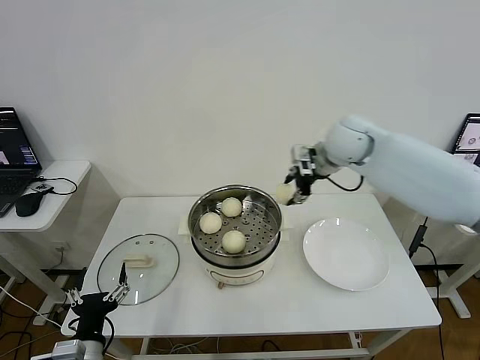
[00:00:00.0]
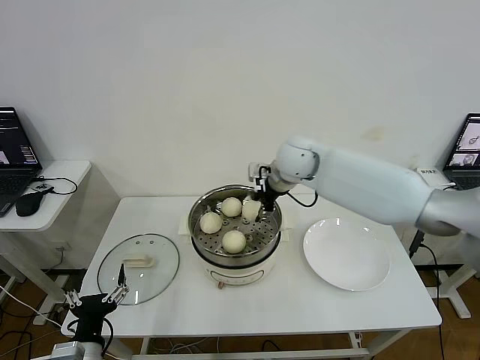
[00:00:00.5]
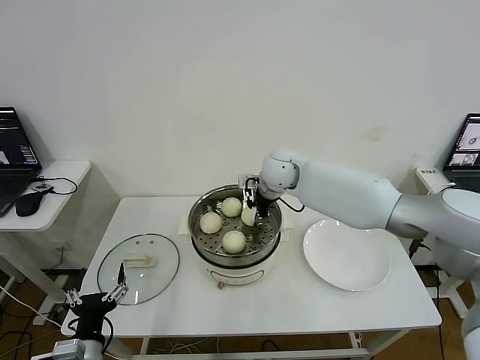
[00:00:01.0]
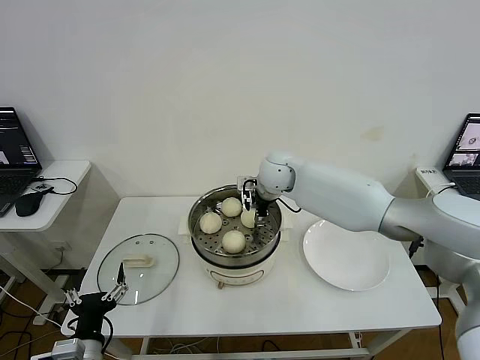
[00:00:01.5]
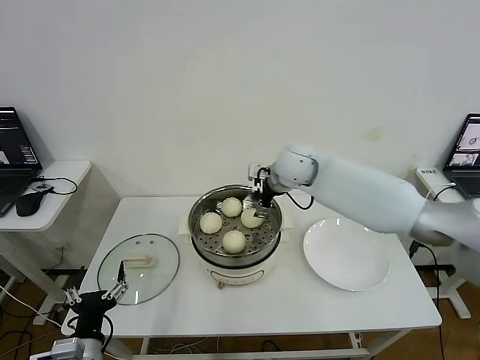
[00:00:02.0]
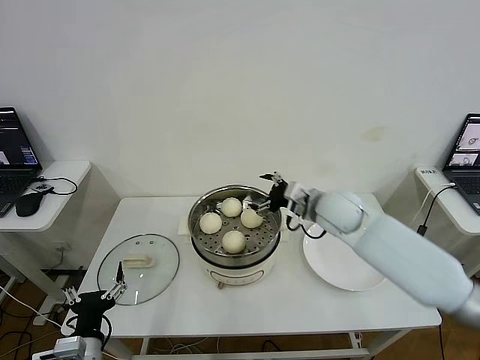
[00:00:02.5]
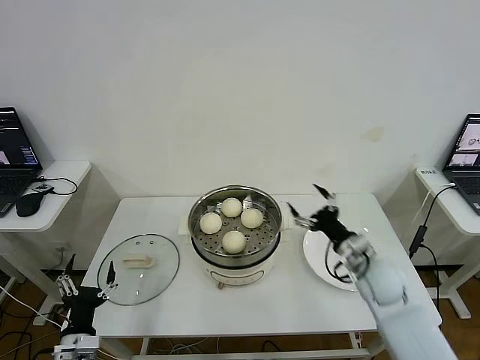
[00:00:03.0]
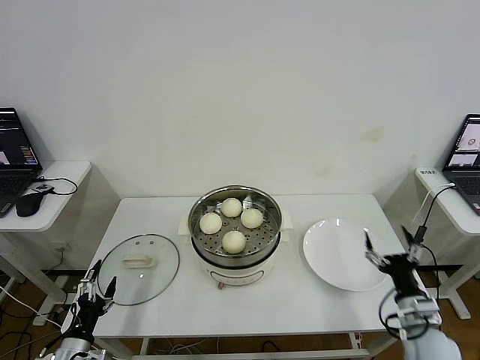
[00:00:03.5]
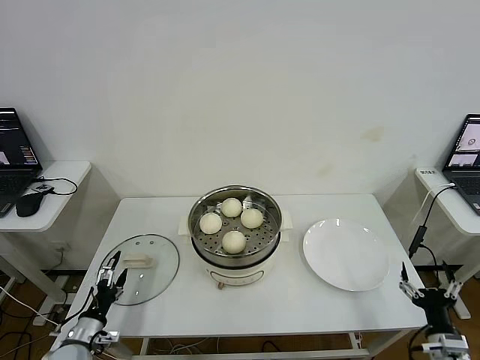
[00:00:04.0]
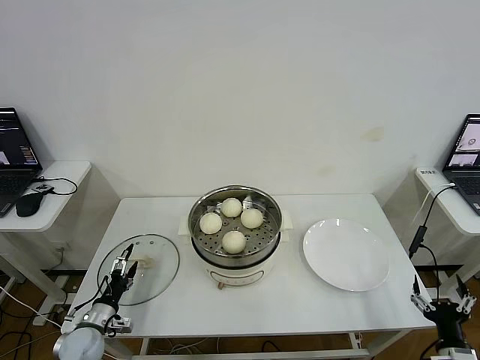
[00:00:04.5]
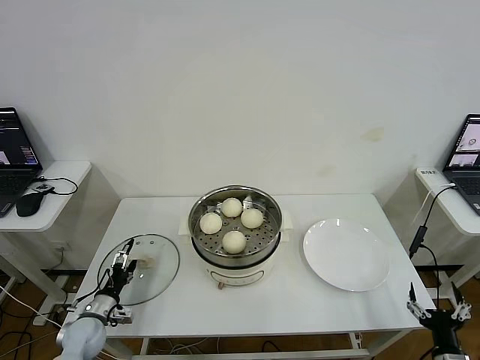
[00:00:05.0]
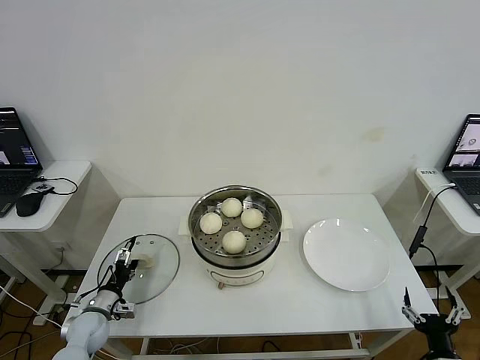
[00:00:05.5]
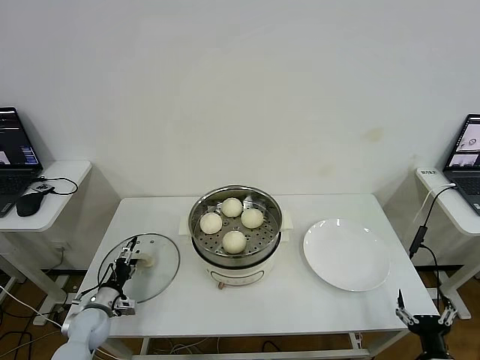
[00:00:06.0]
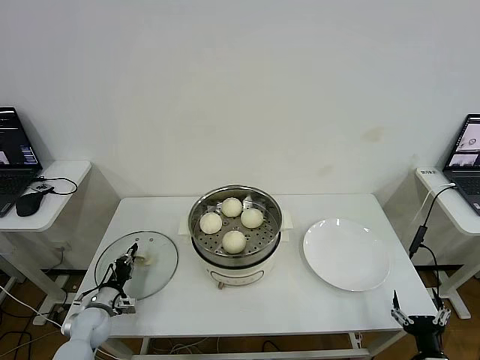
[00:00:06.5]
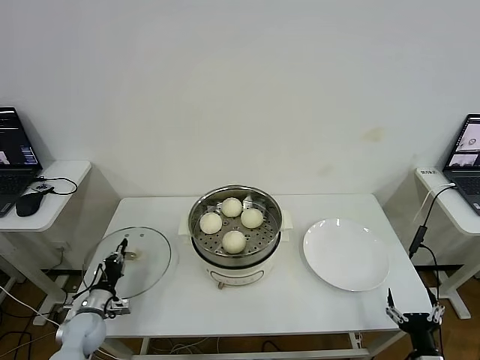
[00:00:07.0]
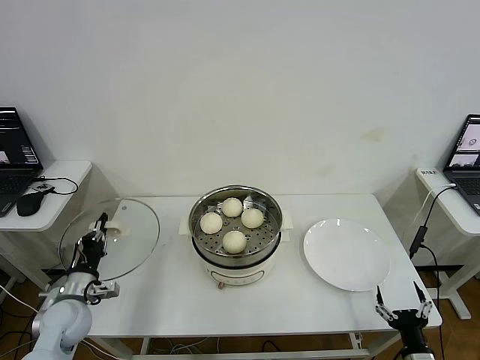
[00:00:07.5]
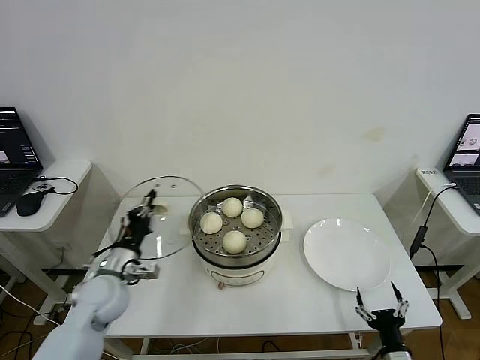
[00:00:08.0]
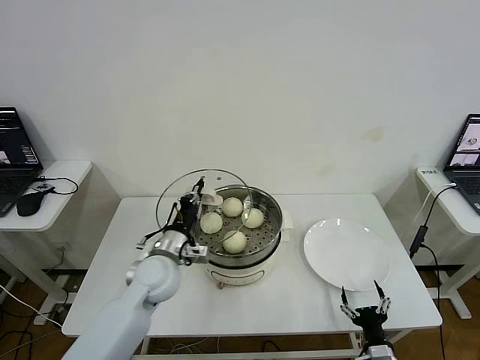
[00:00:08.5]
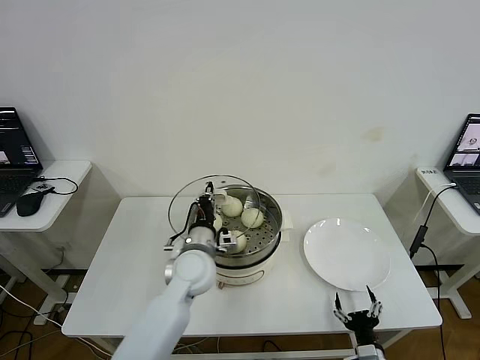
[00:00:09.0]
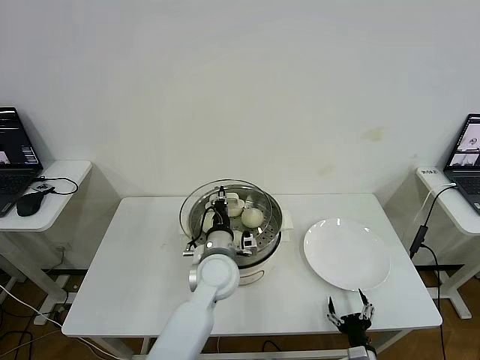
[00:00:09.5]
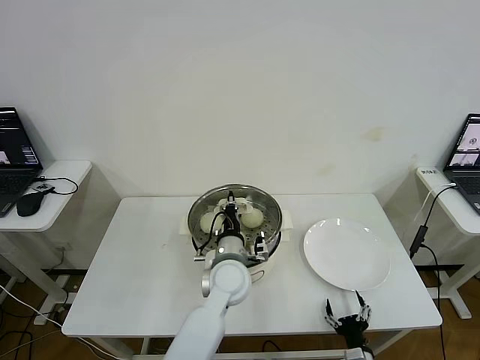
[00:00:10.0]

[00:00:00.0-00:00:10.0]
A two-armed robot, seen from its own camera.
Step, 00:00:00.0 to 00:00:01.5: Place the baozi on the steamer with right gripper.
Step, 00:00:02.0 to 00:00:06.5: Grasp the pot lid with left gripper.
00:00:00.0 to 00:00:02.0: The right gripper moves to the left and downward, approximately 10 cm, and opens up.
00:00:02.0 to 00:00:04.0: The left gripper heads downward, to the left and forward, covering approximately 15 cm; the right gripper moves backward, to the right and downward, roughly 50 cm.
00:00:04.0 to 00:00:06.0: The left gripper is displaced forward by about 10 cm, while the right gripper shifts by some 5 cm.
00:00:06.0 to 00:00:08.0: The right gripper shifts approximately 5 cm to the left; the left gripper travels upward and to the right by some 20 cm, and closes its fingers.
00:00:08.0 to 00:00:10.0: The left gripper moves to the right, roughly 30 cm. Meanwhile the right gripper travels to the left by about 5 cm.

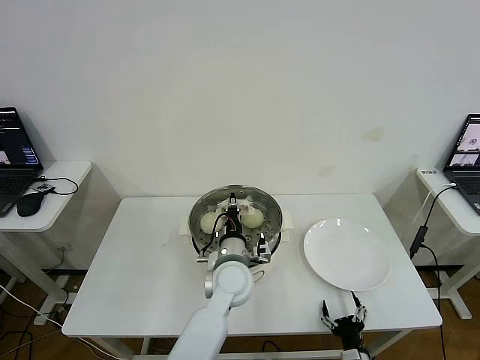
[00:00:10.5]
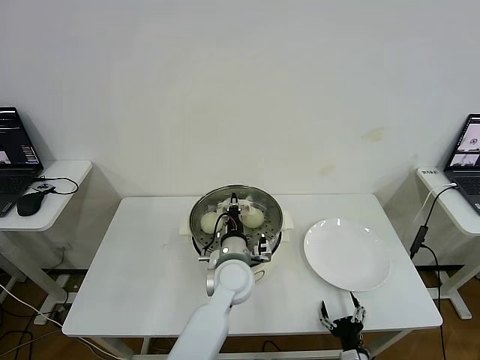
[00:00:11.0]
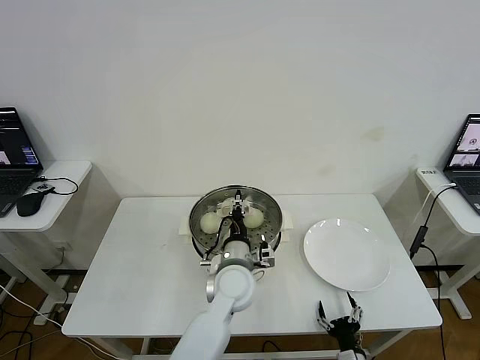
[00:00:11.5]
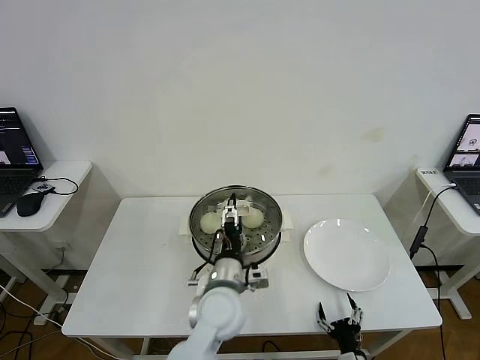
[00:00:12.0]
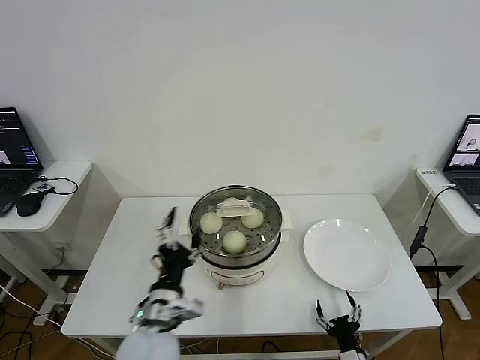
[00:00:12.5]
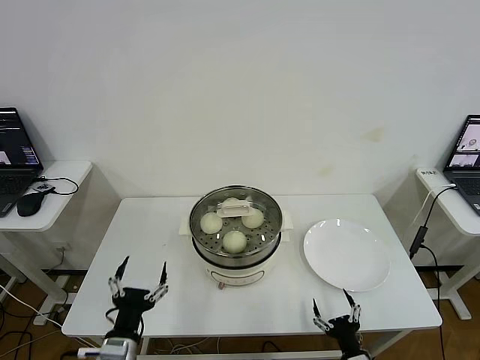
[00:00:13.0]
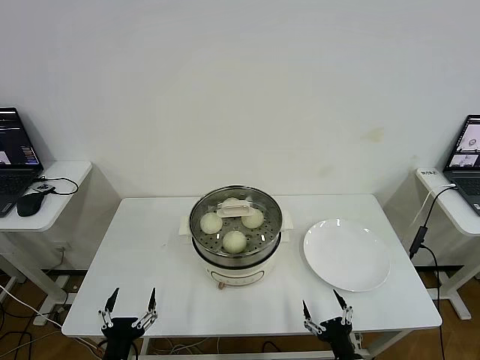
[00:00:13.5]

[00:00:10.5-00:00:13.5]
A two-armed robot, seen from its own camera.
00:00:10.5 to 00:00:12.0: The left gripper is displaced backward by roughly 5 cm, and opens up.
00:00:12.0 to 00:00:13.5: The left gripper goes approximately 30 cm to the left and backward; the right gripper travels upward by approximately 5 cm.
